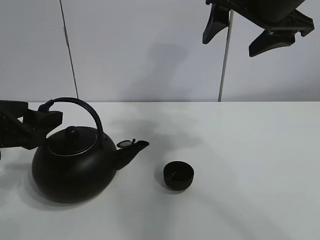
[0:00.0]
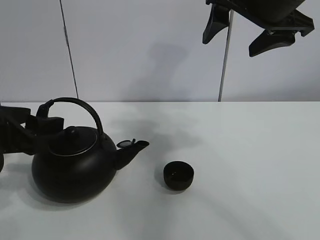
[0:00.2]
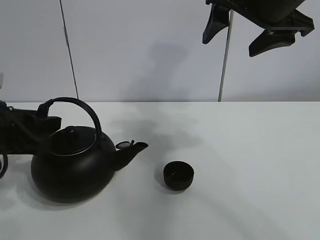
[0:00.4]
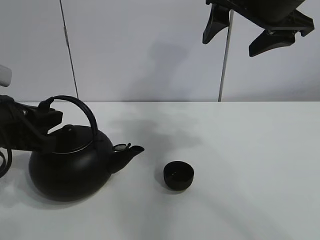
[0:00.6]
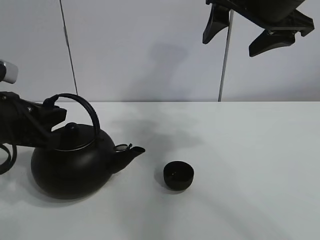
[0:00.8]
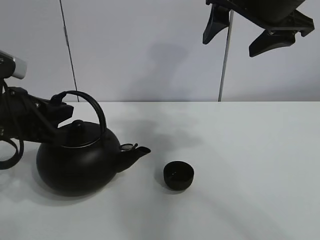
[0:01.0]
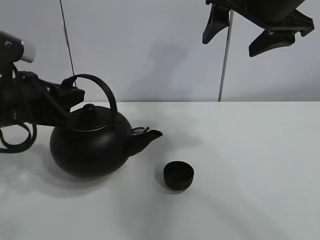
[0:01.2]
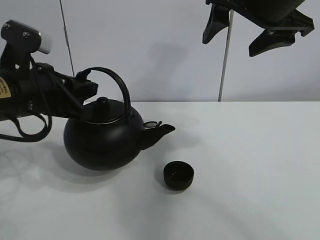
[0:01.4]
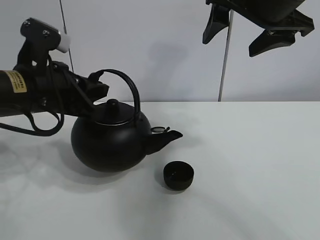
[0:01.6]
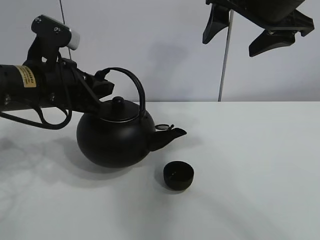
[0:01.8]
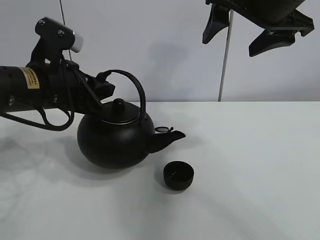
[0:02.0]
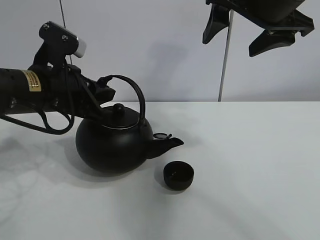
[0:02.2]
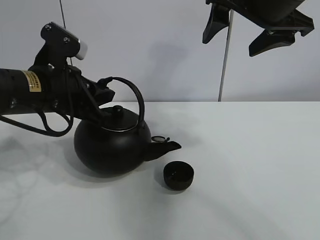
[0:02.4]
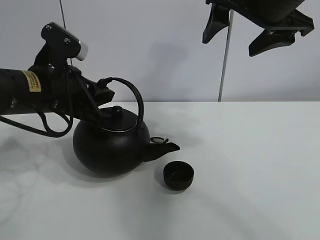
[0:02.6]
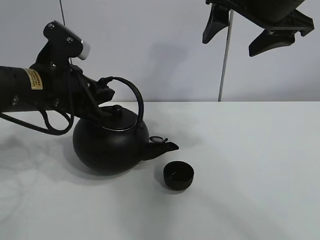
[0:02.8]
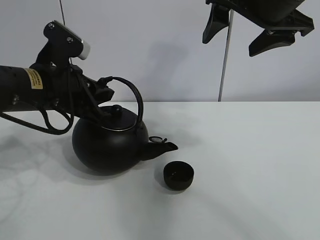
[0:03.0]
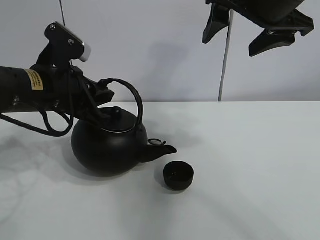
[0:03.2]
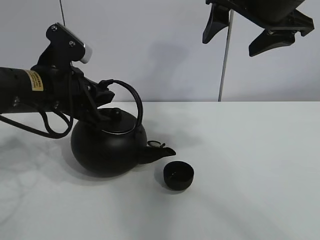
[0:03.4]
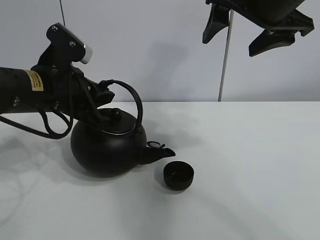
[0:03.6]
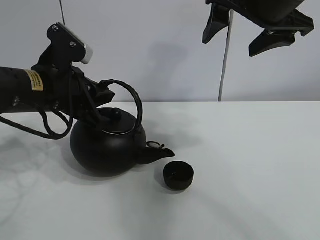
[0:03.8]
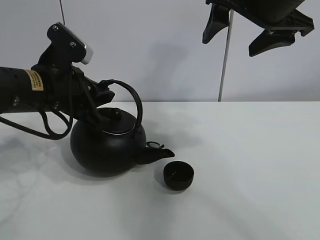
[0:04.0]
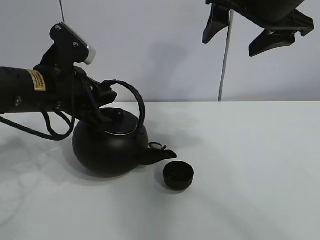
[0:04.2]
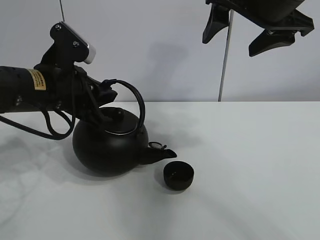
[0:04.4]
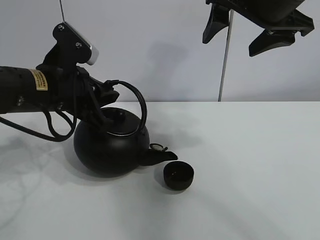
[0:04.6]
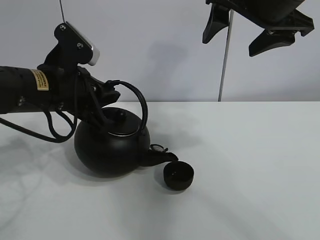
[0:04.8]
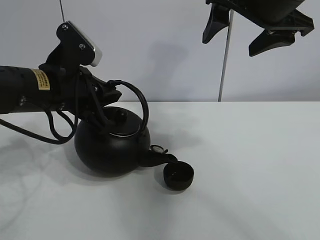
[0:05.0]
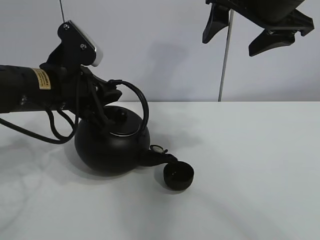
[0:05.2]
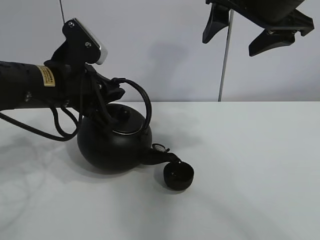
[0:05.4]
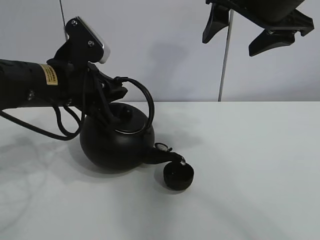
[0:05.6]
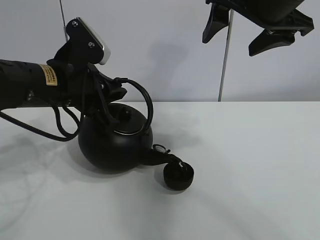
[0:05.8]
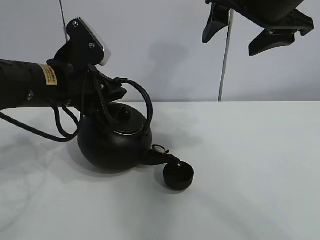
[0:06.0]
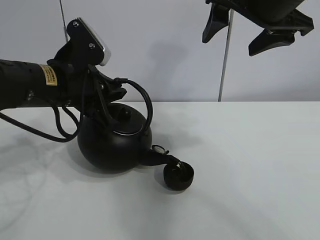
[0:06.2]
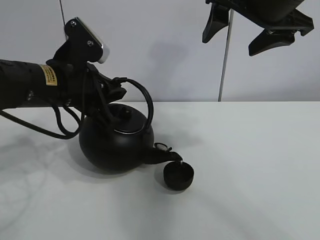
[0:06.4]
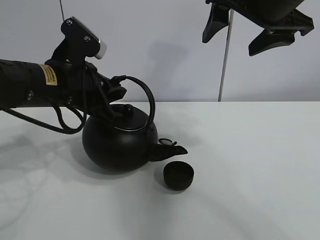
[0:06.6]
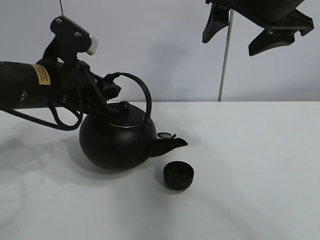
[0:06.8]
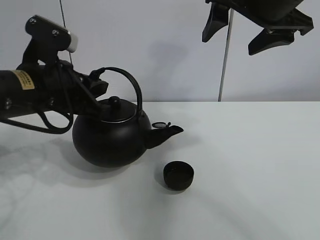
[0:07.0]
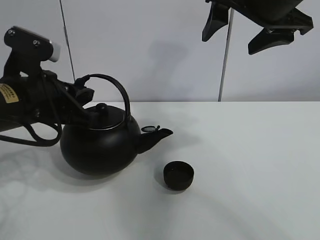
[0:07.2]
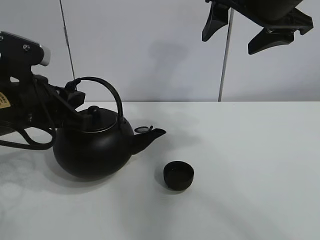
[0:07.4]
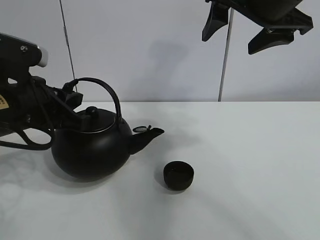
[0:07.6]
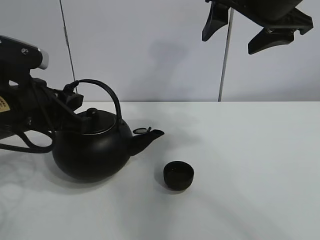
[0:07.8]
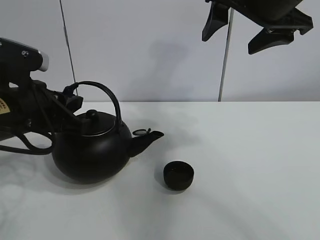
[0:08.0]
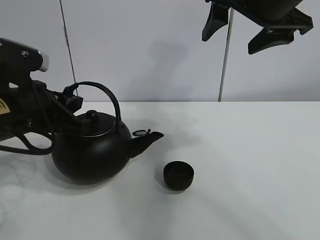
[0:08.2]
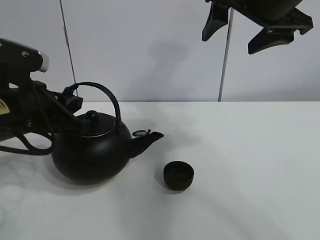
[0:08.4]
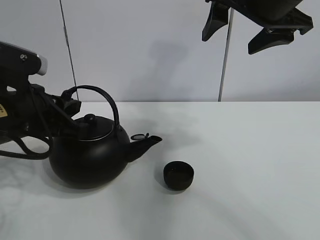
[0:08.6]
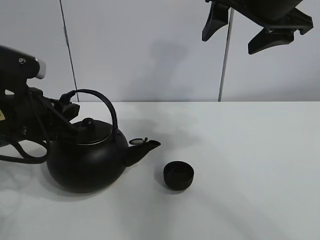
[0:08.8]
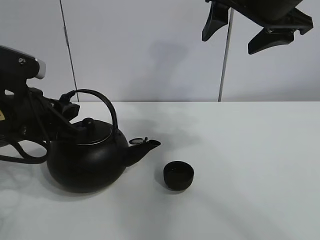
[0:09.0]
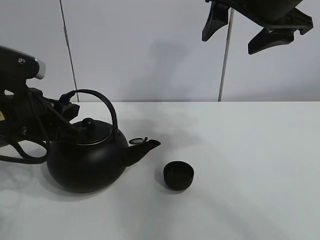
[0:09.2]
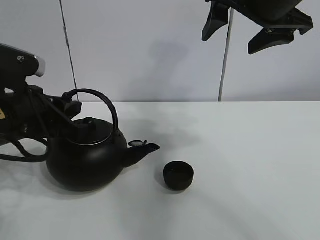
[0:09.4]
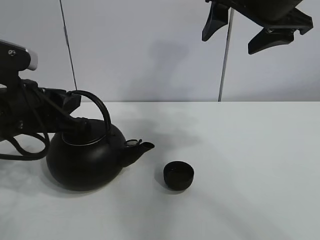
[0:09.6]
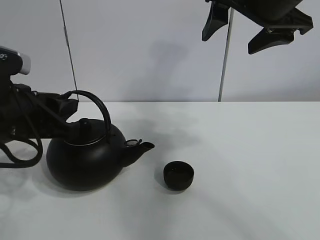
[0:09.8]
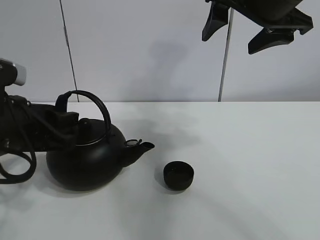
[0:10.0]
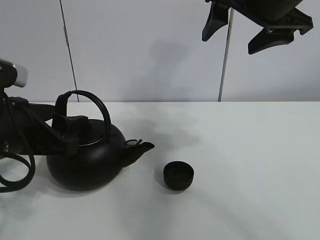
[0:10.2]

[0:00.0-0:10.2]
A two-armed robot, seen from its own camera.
Task of the whole recording: pour tea into the teacup.
Step, 0:00.8 to 0:06.6: Pour tea into the teacup with the left gripper.
0:00.0 to 0:01.4: The left gripper is displaced to the right by some 5 cm, and closes its fingers.
0:01.4 to 0:03.0: There are only small adjustments of the grippers.
0:03.0 to 0:04.4: Both grippers stay about where they are.
0:04.4 to 0:05.8: There are only small adjustments of the grippers.
0:05.8 to 0:07.2: The left gripper moves about 5 cm.
0:07.2 to 0:08.8: The grippers move only a little.
0:08.8 to 0:10.2: The left gripper opens.

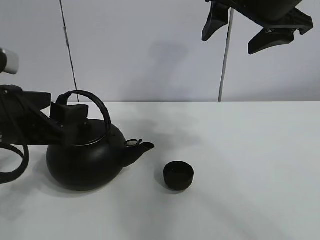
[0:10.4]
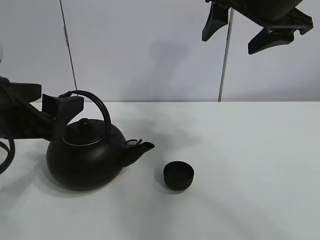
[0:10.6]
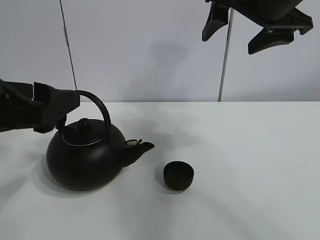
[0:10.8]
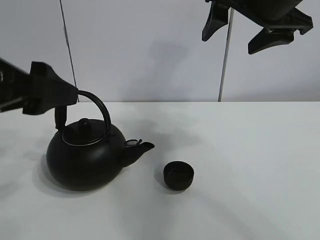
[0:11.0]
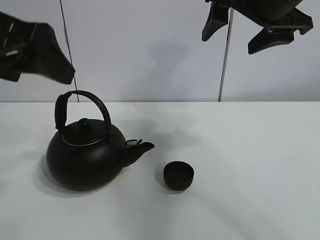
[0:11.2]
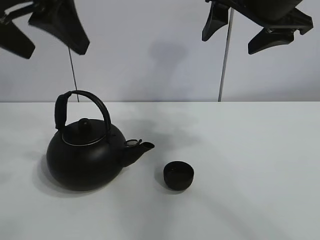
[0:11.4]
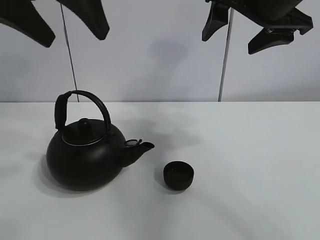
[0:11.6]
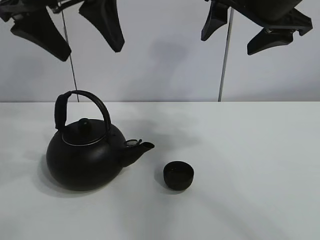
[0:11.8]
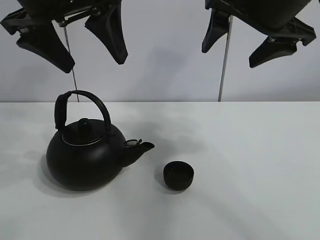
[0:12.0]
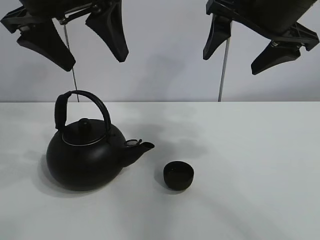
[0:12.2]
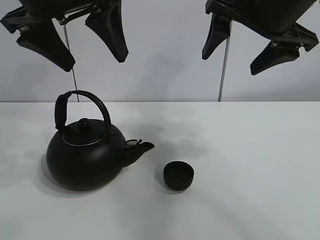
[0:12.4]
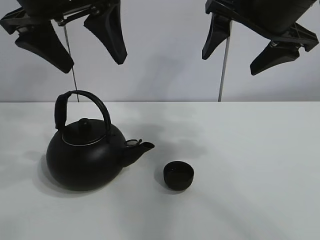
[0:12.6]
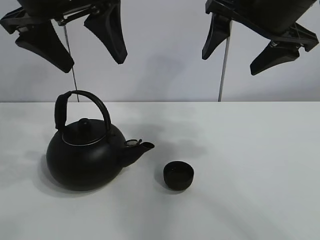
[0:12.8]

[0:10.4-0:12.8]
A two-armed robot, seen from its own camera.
Task of the whole recording: pour tea into the teacup.
0:10.4 to 0:11.6: The left gripper moves upward, approximately 20 cm.
0:11.6 to 0:12.8: The grippers move only a little.

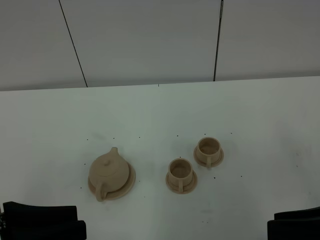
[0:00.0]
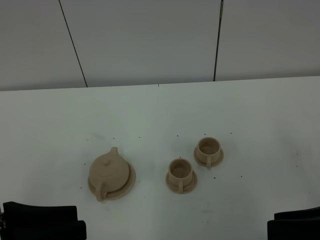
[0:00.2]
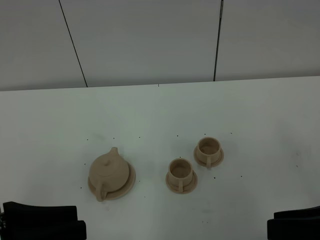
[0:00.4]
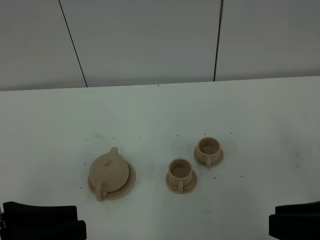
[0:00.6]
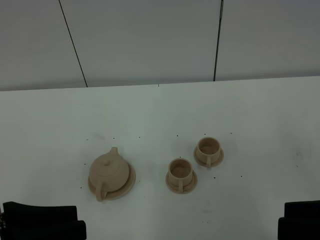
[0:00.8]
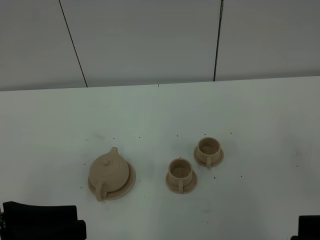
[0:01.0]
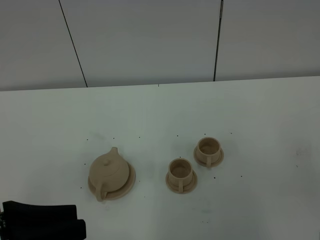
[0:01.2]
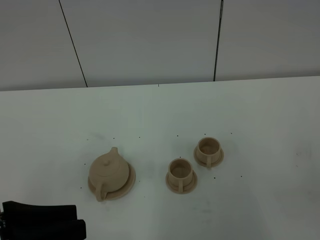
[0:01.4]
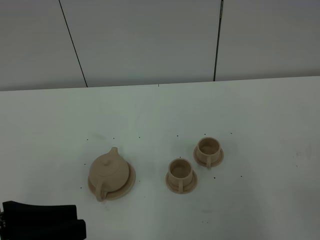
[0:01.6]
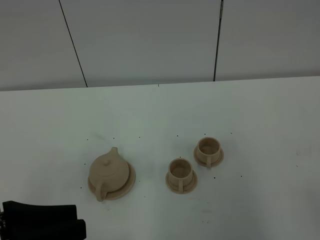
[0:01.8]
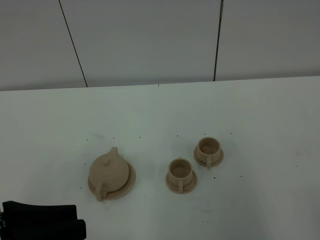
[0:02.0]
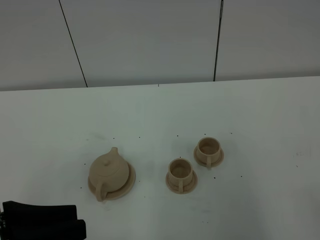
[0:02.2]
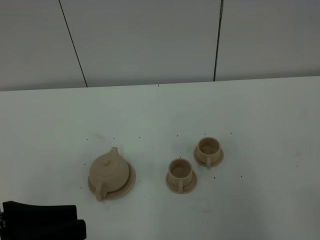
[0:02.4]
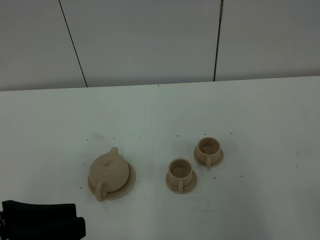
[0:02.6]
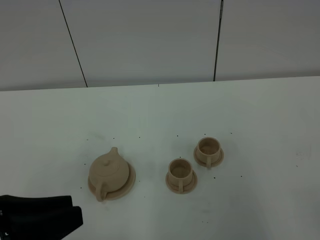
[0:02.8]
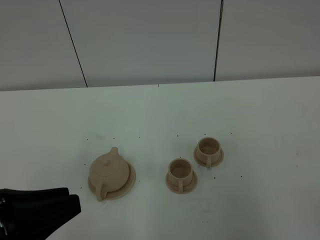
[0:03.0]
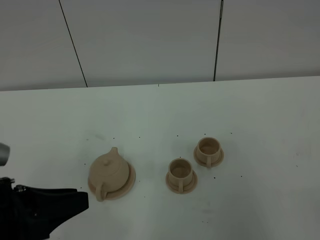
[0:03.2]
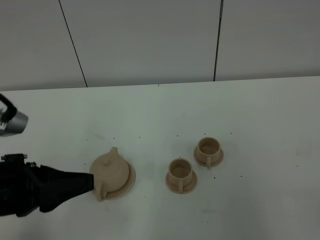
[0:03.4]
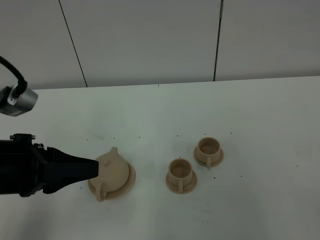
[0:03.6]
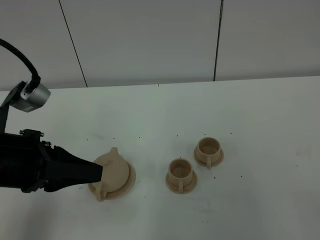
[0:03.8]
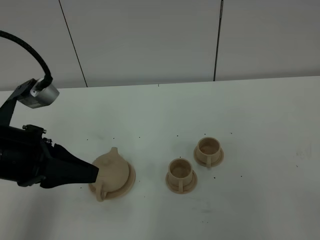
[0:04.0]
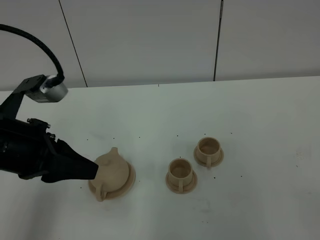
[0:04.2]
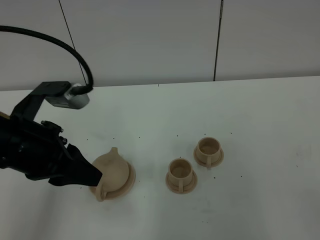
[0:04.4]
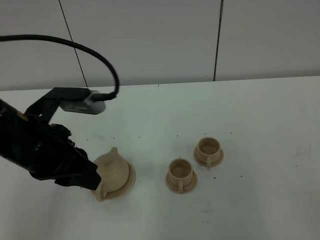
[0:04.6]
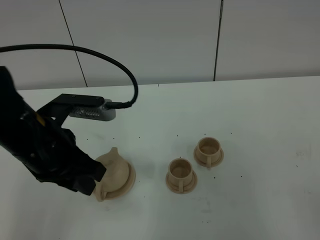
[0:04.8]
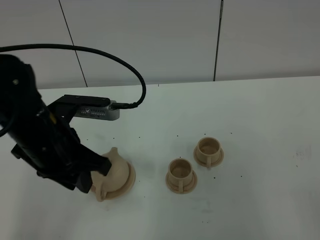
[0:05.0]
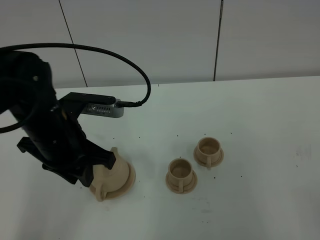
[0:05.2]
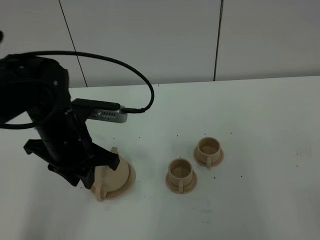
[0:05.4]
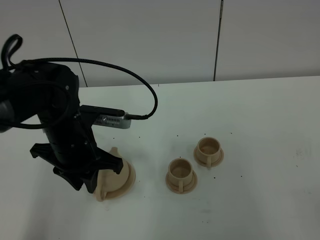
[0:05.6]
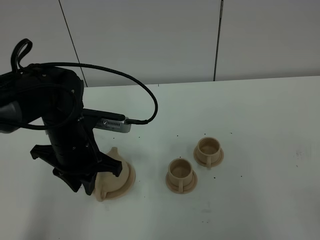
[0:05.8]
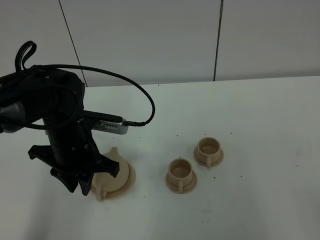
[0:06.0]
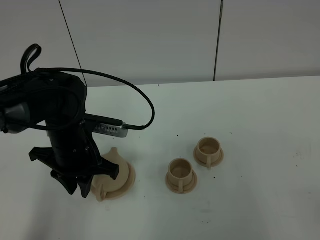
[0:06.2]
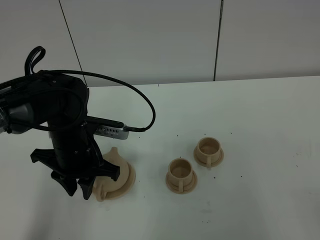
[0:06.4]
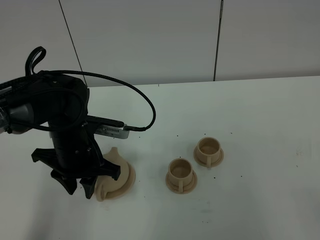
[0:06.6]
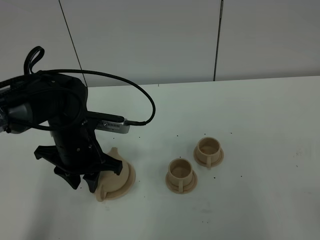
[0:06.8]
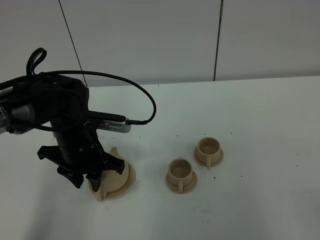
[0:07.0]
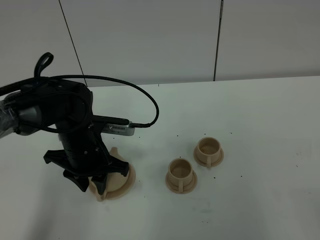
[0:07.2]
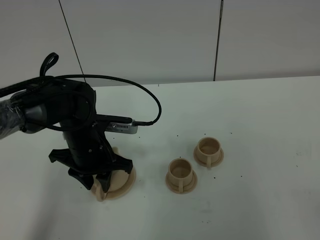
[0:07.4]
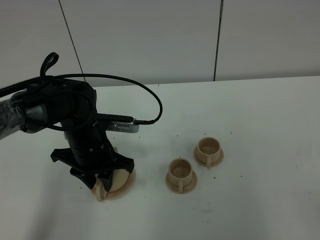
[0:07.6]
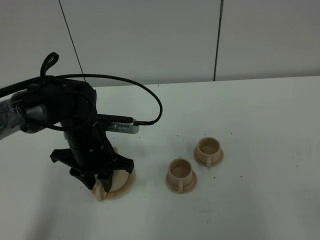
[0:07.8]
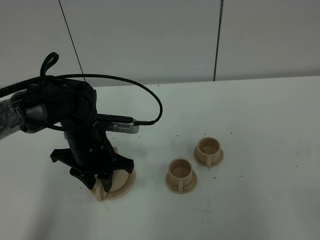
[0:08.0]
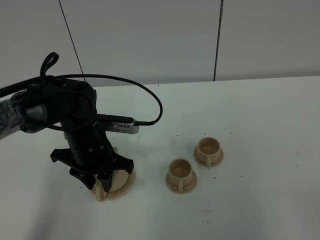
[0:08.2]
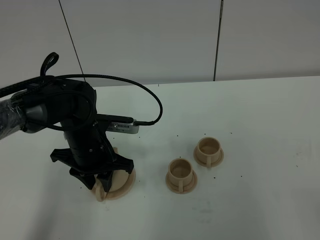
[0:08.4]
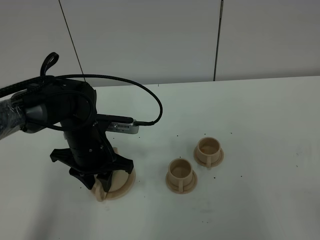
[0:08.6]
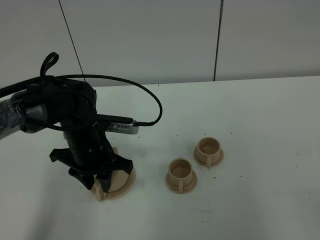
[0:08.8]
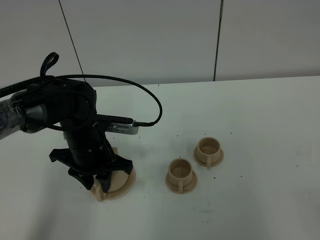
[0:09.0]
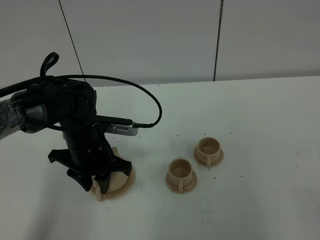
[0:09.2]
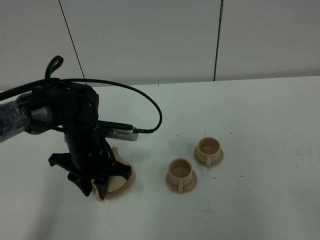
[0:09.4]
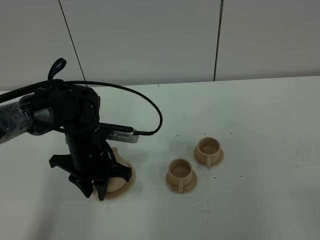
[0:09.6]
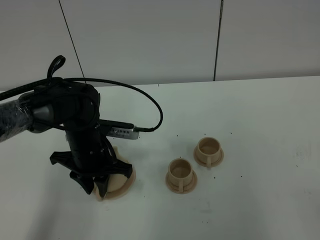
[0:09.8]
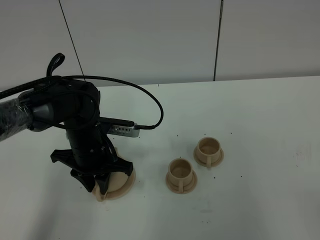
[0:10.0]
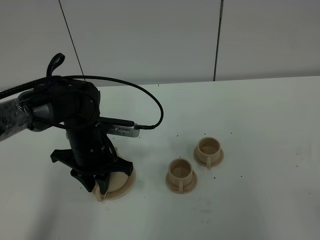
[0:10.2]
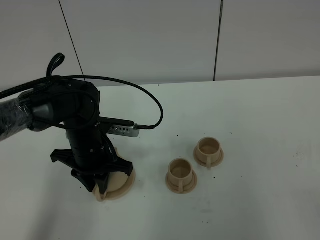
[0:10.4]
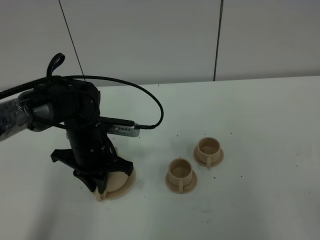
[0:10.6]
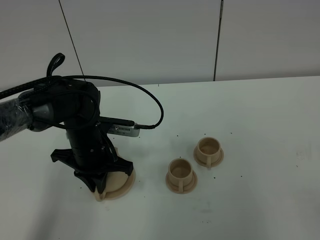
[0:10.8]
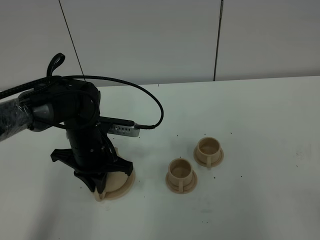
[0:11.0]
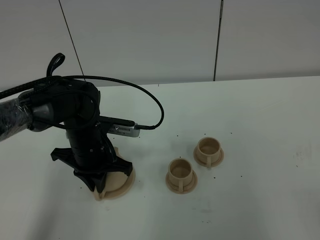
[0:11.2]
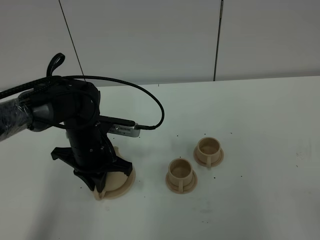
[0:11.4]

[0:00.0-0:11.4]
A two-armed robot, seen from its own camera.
Task of the whole recording: grasp the brown teapot and pour the tea into the two brown teacups one by one, put the brown teapot back in its original place.
0:00.0 to 0:01.4: The right gripper heads backward, covering roughly 10 cm.
0:02.8 to 0:04.2: The left gripper shifts approximately 15 cm forward.
0:04.2 to 0:05.6: The left gripper travels downward, forward and to the right by about 15 cm.
0:05.6 to 0:07.2: The left gripper travels downward by roughly 5 cm, and opens.
0:07.2 to 0:08.6: Neither gripper changes place.
0:08.6 to 0:10.0: There are only small adjustments of the grippers.
0:10.0 to 0:11.4: The left gripper closes its fingers.
